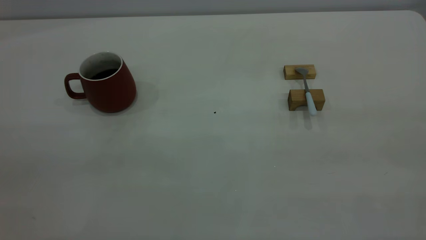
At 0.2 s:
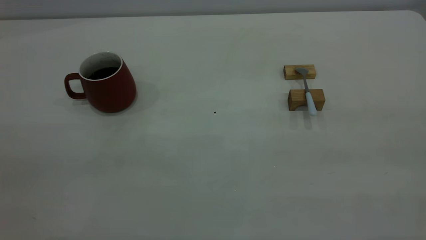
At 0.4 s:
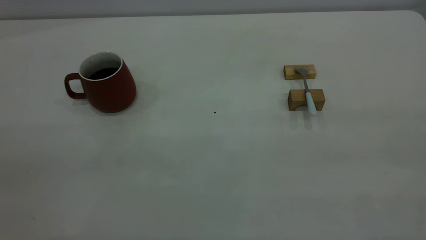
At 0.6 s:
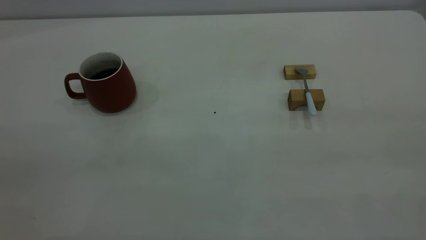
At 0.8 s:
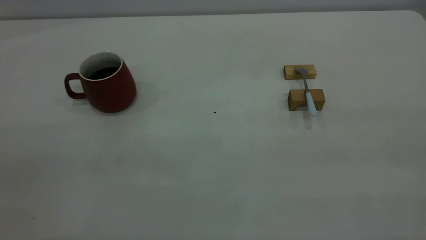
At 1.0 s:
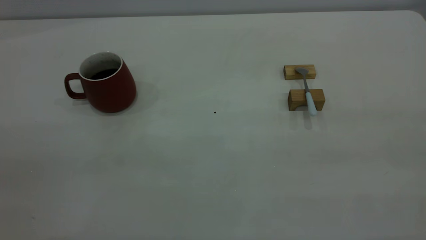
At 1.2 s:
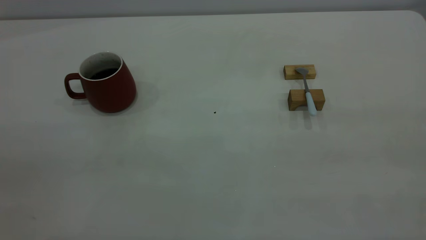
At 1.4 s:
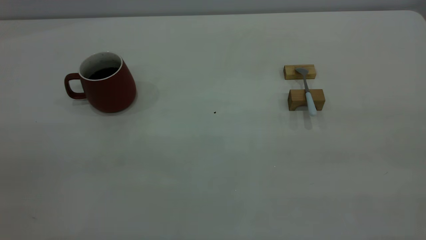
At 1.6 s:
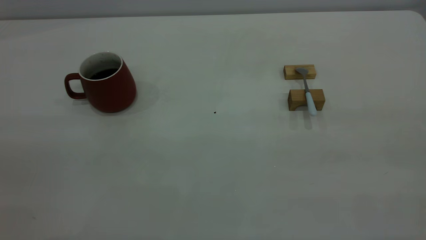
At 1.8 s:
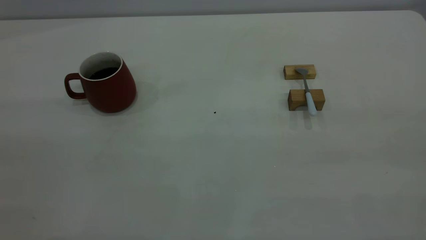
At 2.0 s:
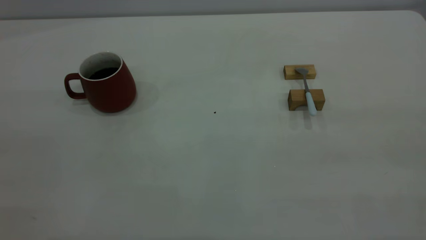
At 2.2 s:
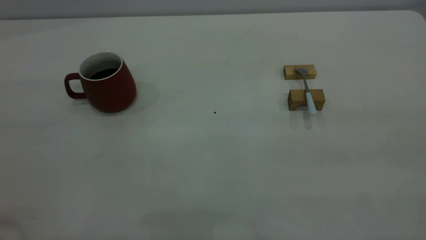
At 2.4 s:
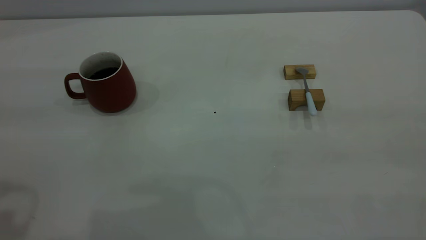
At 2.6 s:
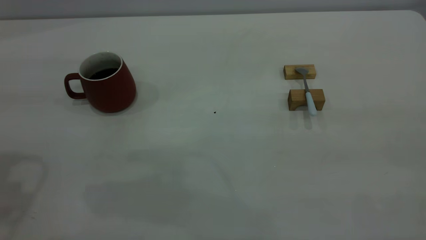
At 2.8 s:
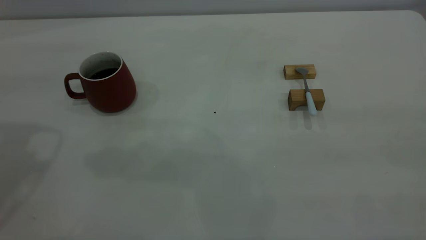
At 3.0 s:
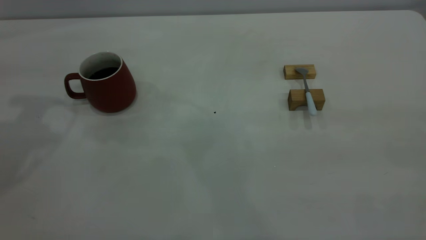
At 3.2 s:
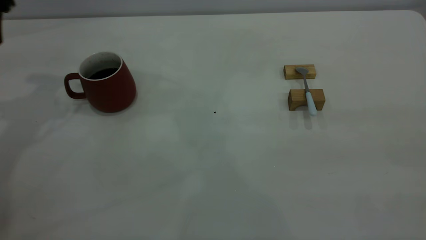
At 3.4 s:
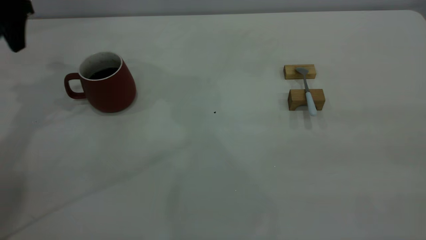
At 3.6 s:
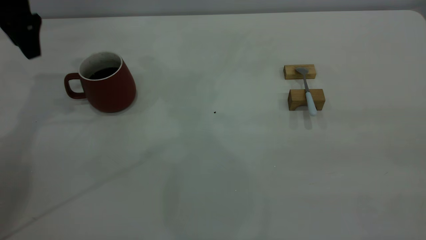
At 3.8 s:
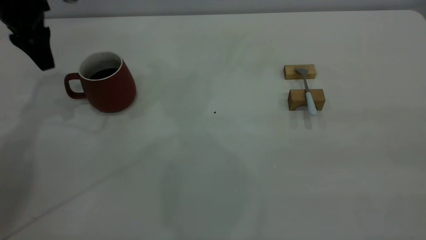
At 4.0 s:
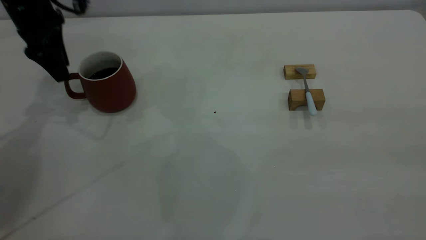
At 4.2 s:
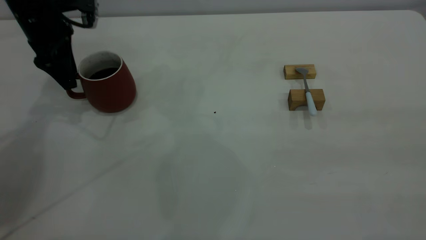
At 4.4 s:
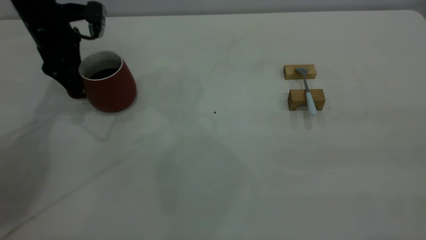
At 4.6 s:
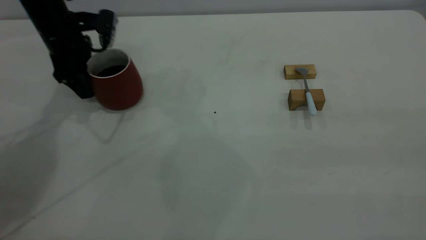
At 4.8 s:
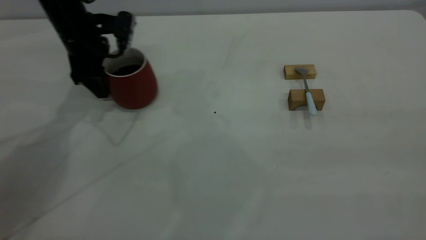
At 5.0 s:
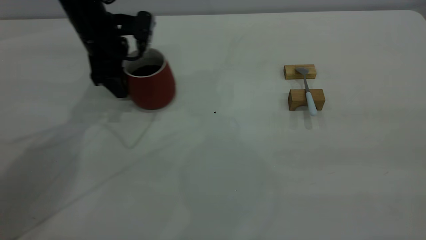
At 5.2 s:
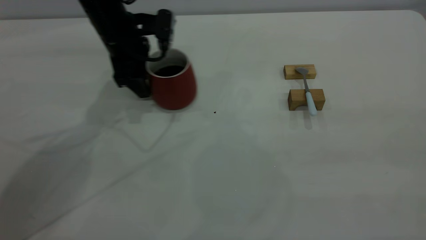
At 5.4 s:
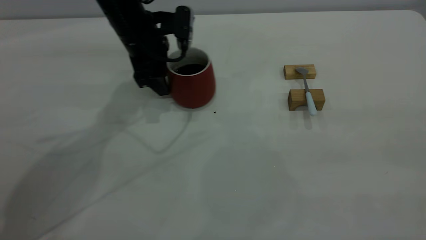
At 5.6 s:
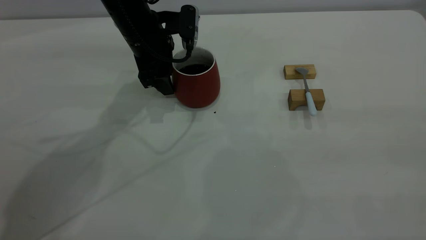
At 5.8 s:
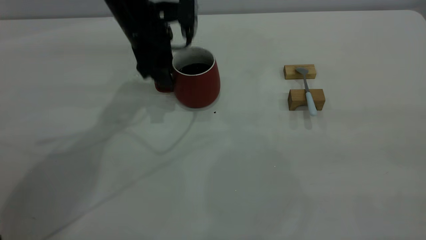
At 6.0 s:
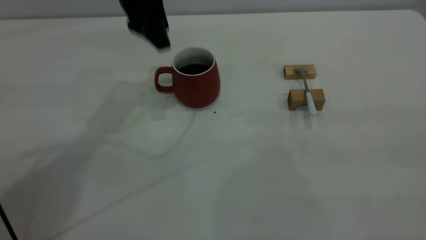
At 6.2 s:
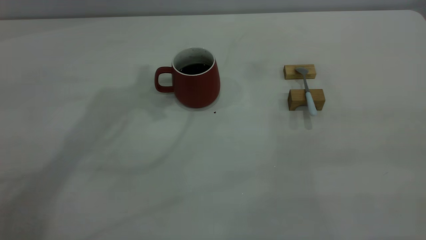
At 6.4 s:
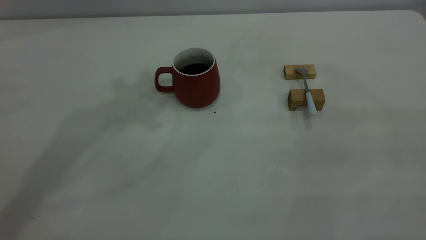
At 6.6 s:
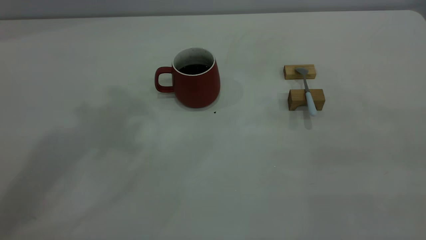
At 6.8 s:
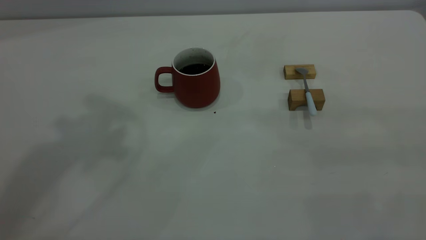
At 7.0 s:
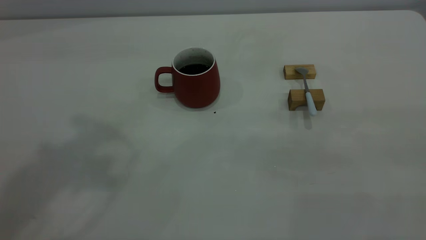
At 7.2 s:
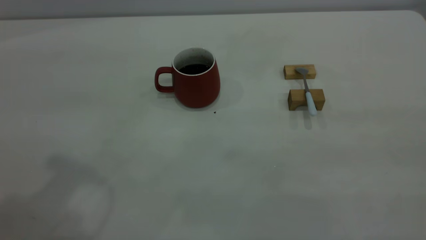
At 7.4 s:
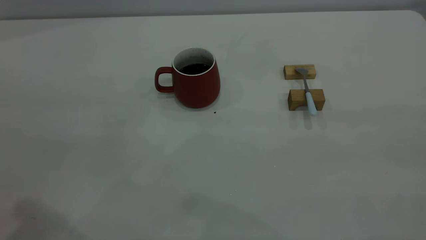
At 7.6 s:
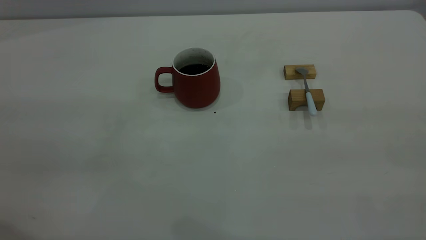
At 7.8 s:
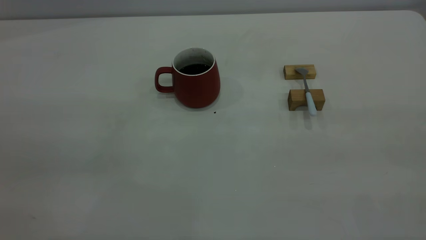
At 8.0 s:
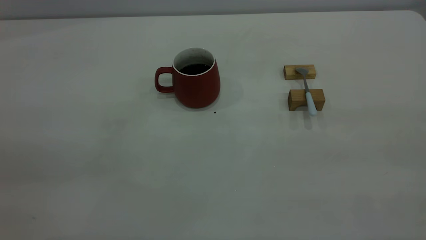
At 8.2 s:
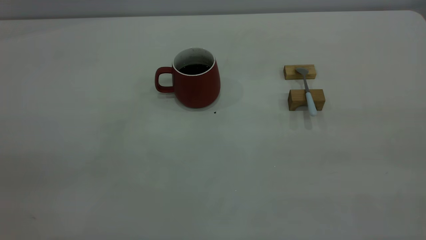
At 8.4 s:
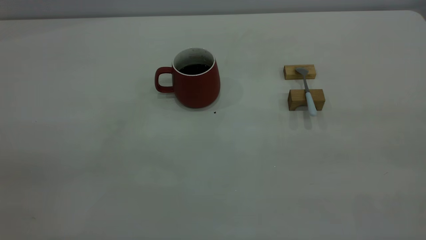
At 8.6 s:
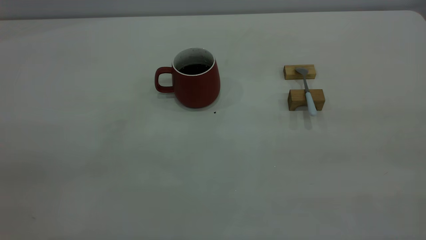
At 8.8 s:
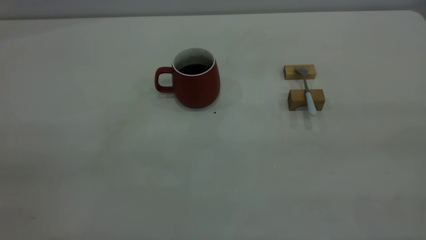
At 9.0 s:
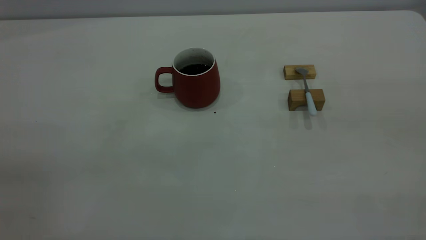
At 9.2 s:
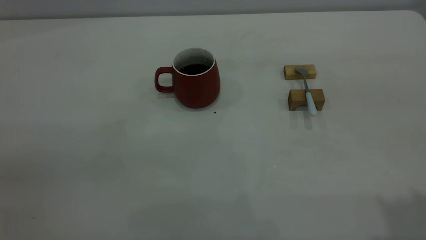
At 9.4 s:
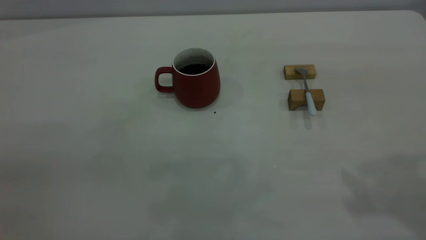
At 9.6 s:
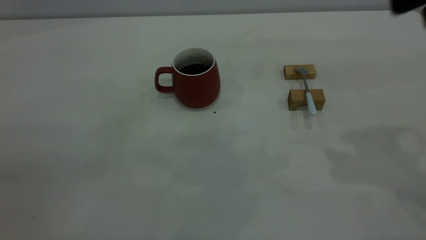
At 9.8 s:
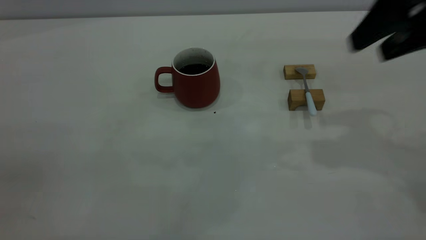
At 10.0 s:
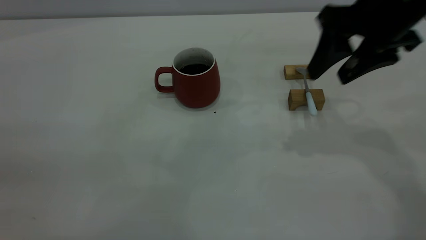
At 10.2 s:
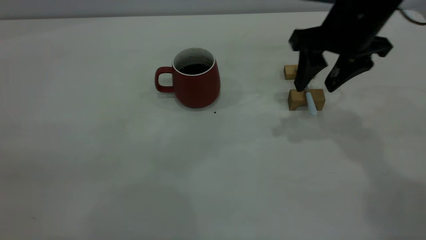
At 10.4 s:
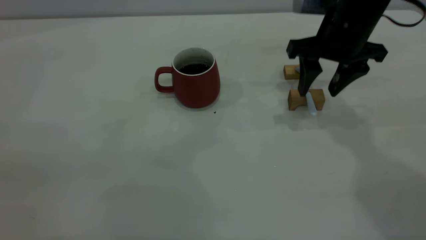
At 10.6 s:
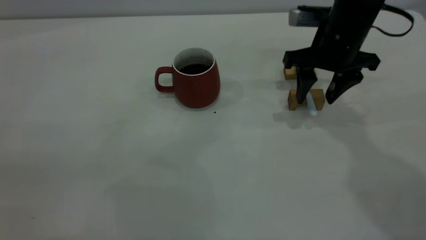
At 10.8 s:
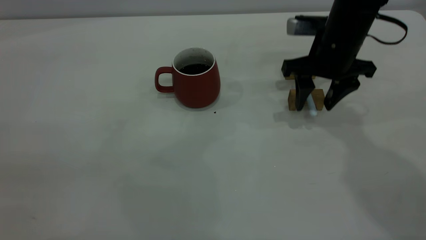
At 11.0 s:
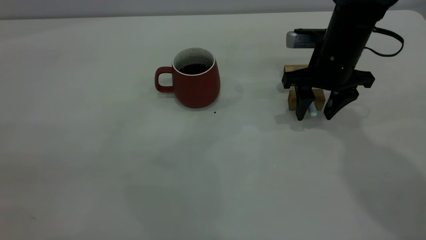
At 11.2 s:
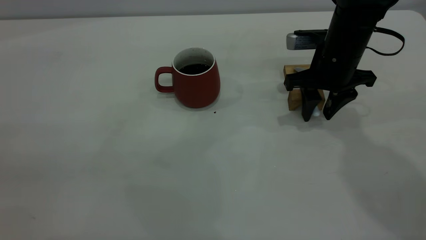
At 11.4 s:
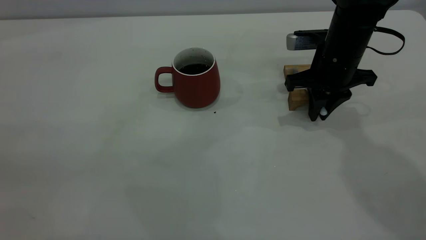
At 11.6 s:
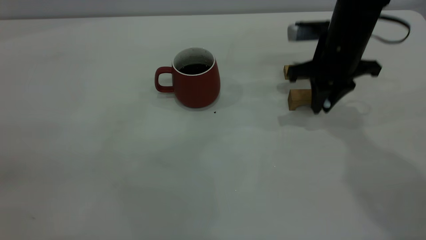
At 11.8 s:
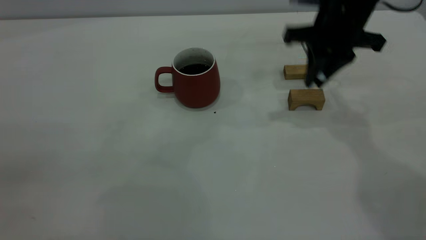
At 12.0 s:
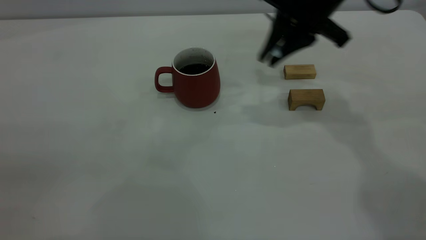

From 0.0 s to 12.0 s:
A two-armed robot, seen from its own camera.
Step, from 0.0 s to 5.8 s: Move the cup with coffee to the center of view.
Step, from 6.0 s to 11.6 s: Pick up the spoon.
From 3.0 s to 4.4 s: The left gripper goes approximately 20 cm downward and forward.
From 4.4 s to 6.0 s: The left gripper is displaced to the right and upward by about 20 cm.
From 6.0 s to 7.6 s: The left gripper heads backward, covering approximately 35 cm.
From 9.0 s to 10.4 s: The right gripper travels forward and downward by some 40 cm.
From 10.4 s to 12.0 s: The right gripper moves upward, about 5 cm, and closes.

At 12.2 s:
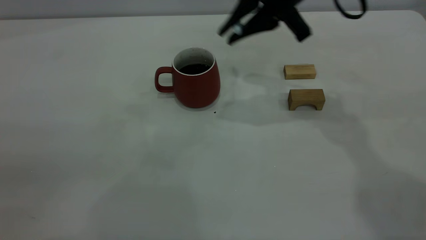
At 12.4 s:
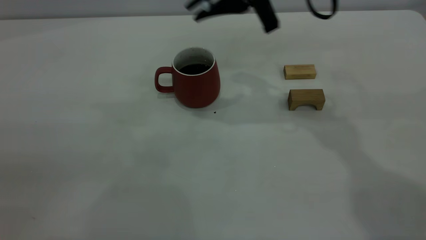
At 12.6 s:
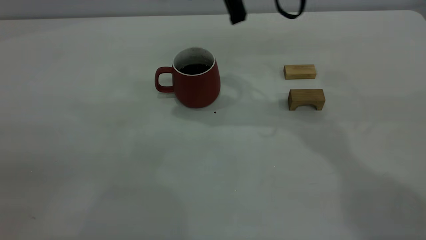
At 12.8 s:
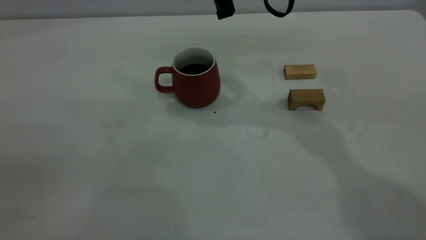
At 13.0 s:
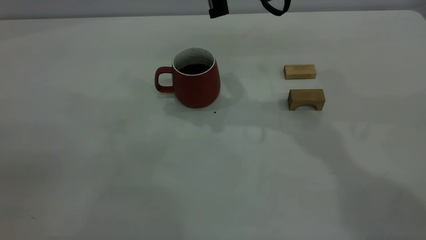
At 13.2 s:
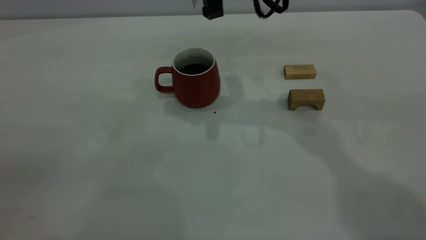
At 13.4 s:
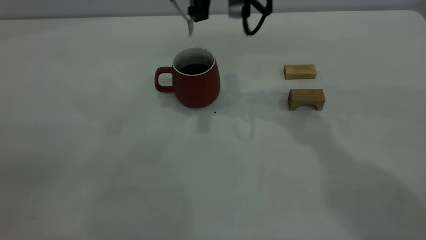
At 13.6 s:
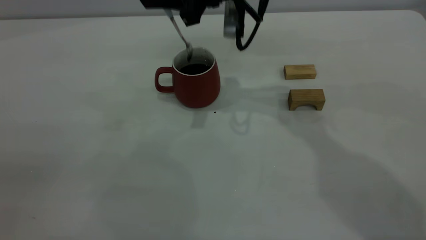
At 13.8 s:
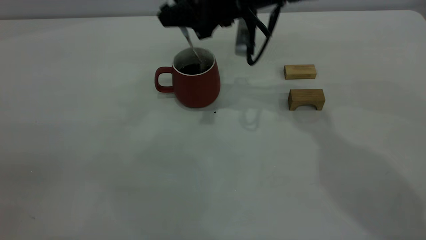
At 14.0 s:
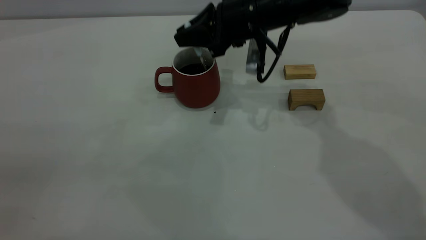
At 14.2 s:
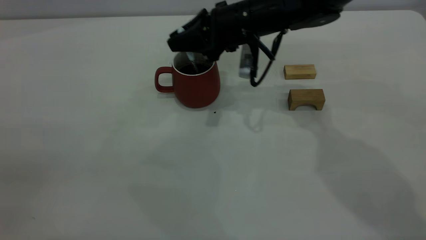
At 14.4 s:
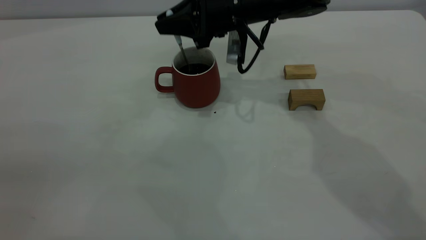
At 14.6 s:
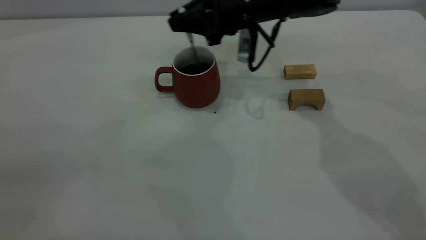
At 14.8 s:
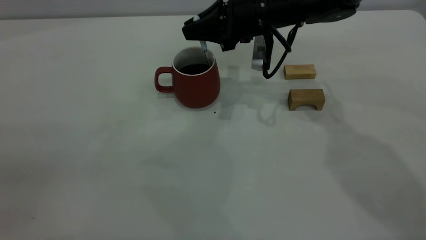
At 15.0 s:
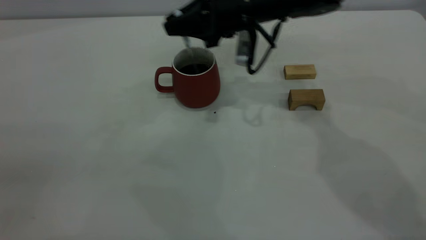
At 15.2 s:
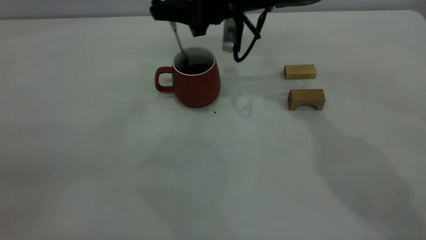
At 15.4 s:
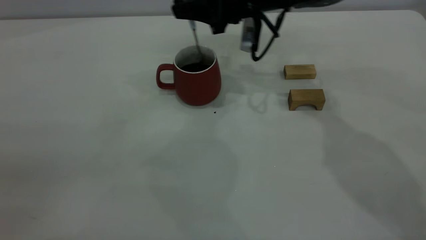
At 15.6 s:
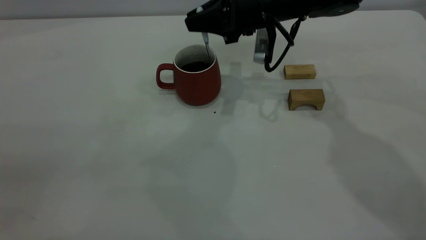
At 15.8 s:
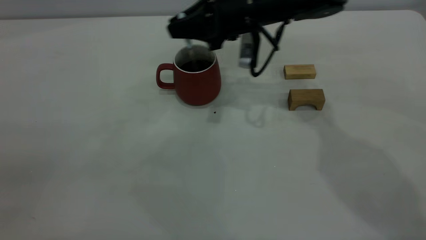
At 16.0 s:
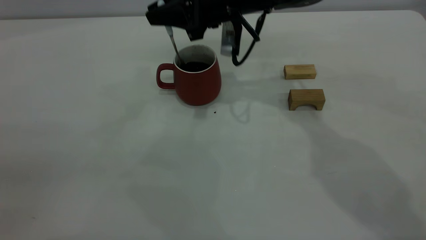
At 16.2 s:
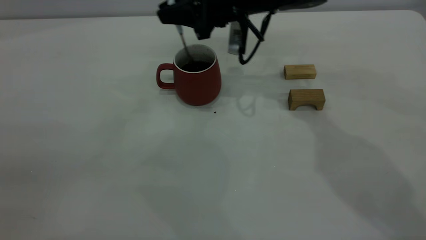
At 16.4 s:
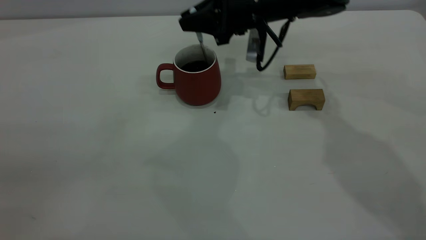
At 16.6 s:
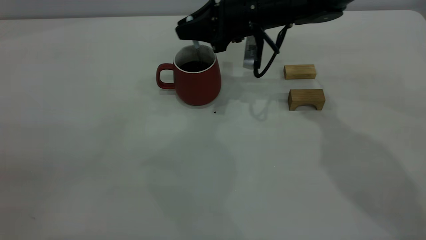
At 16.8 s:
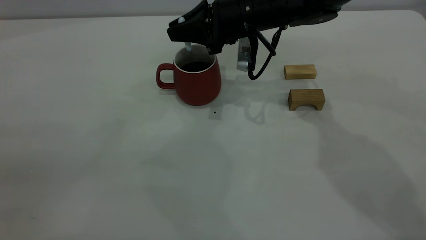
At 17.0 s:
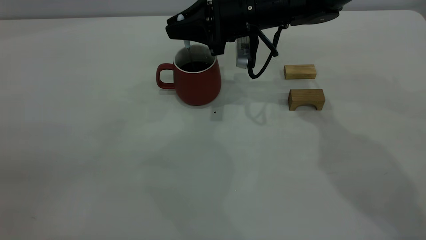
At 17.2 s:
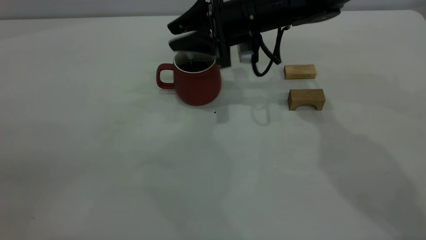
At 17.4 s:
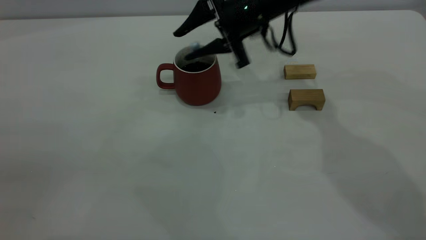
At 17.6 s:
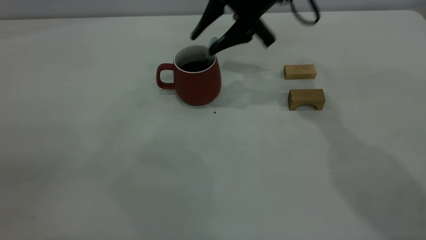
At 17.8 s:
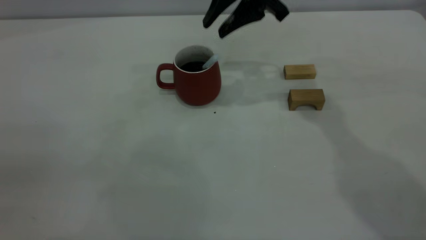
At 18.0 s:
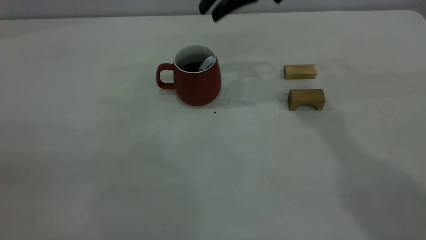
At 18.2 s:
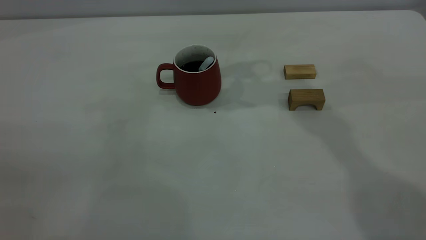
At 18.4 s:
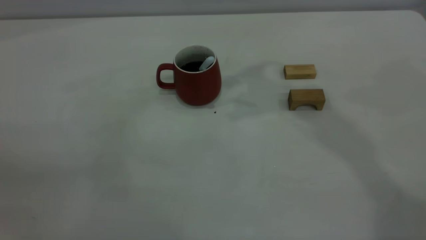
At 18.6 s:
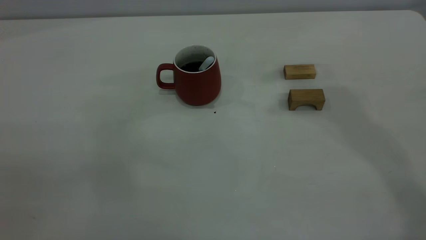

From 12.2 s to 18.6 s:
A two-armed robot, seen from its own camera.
Step, from 12.2 s to 17.6 s: Stir the coffee in the cup.
From 12.2 s to 13.8 s: The right gripper travels downward and to the left by some 10 cm.
From 13.8 s to 17.0 s: The grippers stay close to where they were, moving slightly.
From 17.0 s to 18.6 s: The right gripper is displaced upward and to the right by some 30 cm, and opens, then closes once more.
